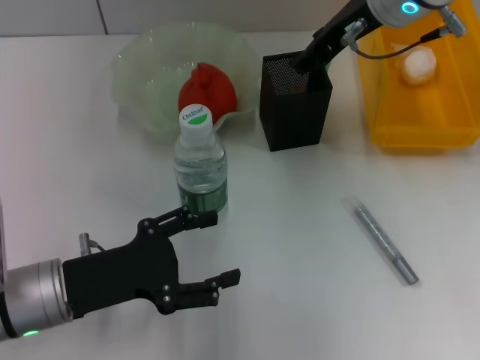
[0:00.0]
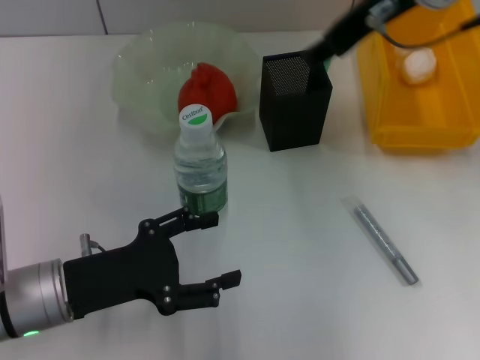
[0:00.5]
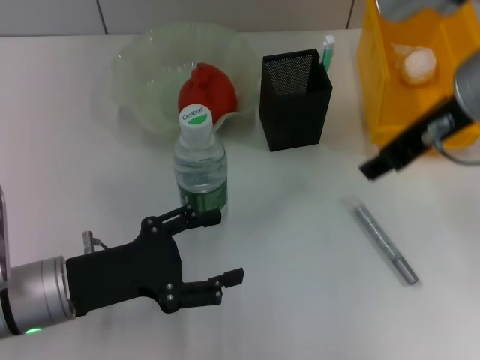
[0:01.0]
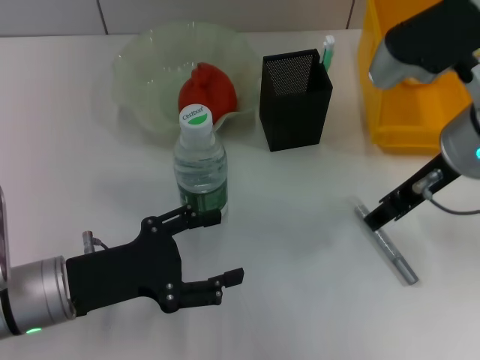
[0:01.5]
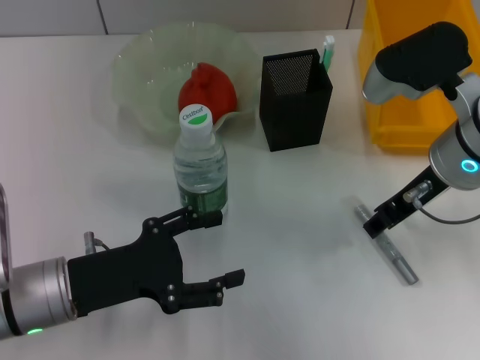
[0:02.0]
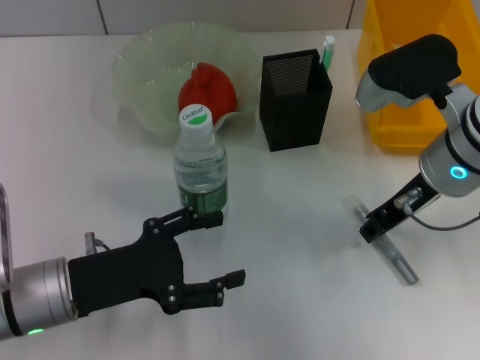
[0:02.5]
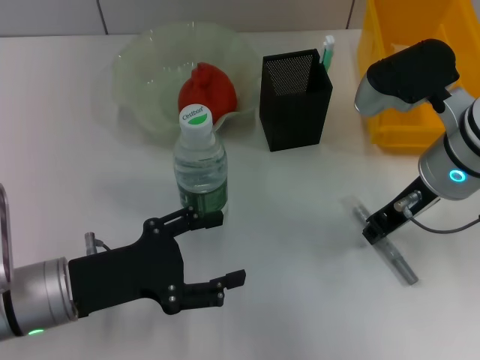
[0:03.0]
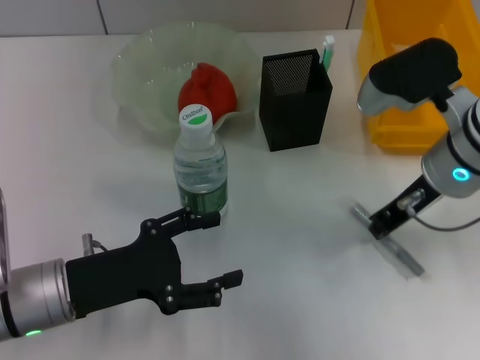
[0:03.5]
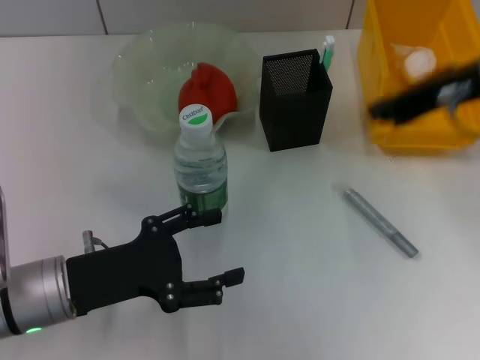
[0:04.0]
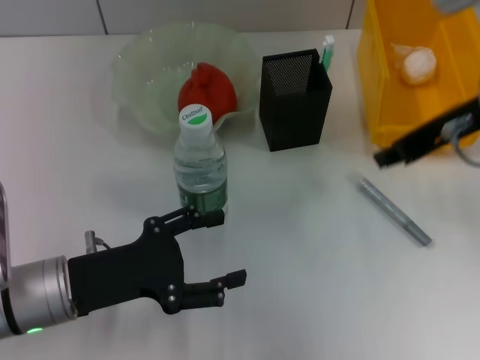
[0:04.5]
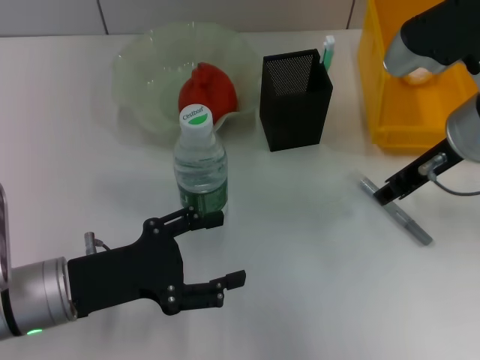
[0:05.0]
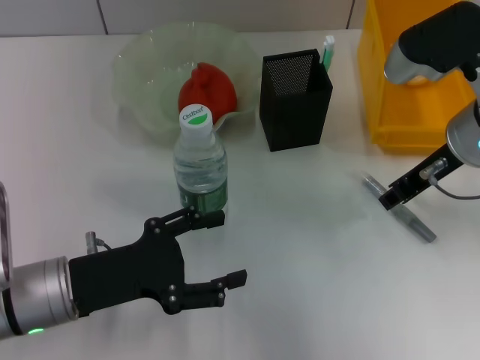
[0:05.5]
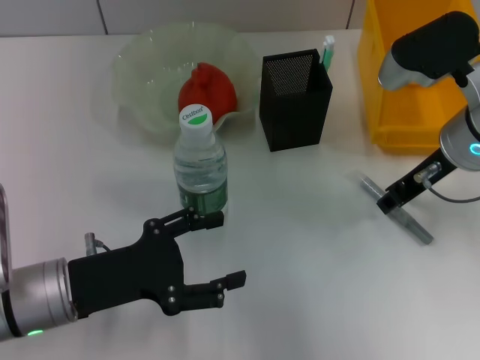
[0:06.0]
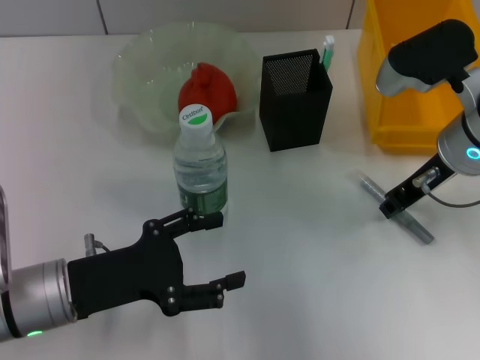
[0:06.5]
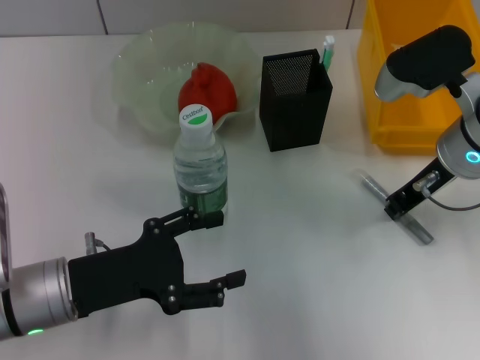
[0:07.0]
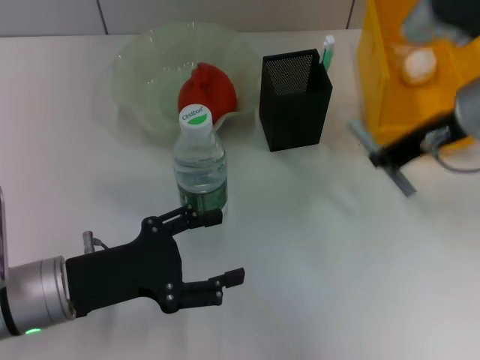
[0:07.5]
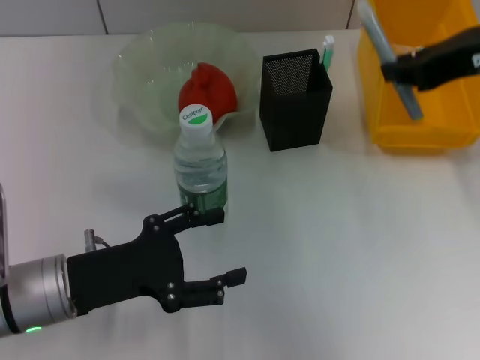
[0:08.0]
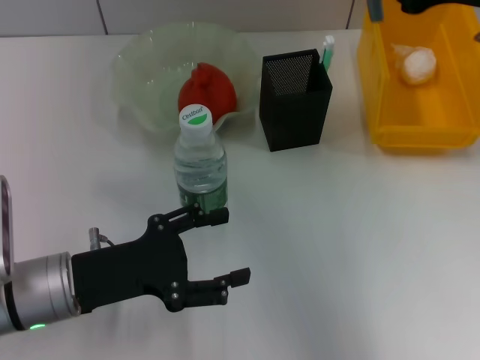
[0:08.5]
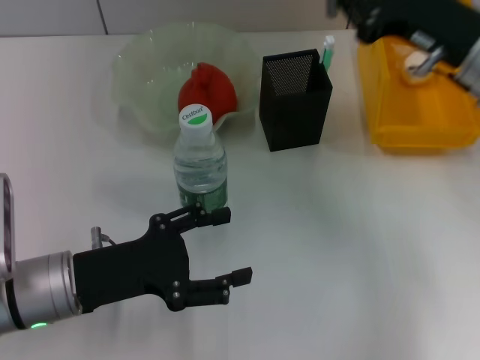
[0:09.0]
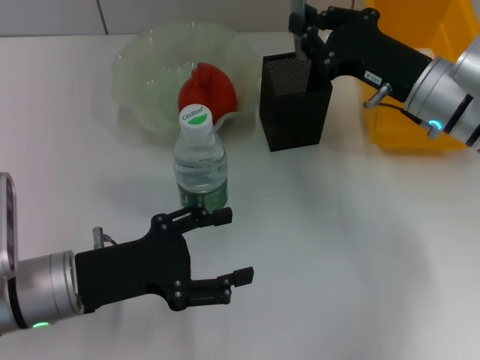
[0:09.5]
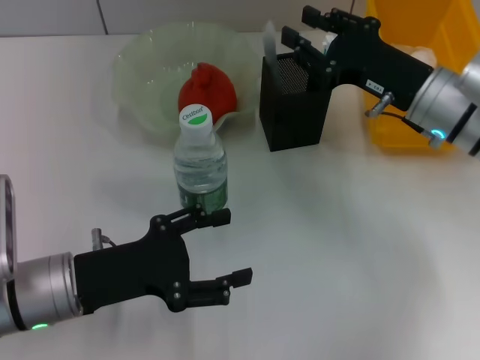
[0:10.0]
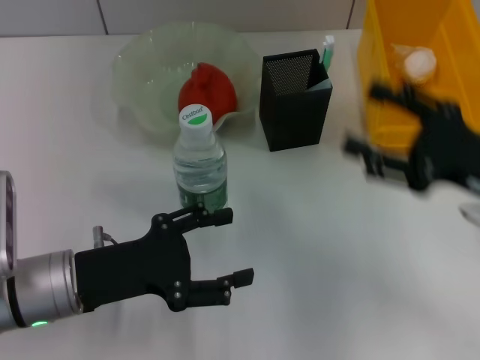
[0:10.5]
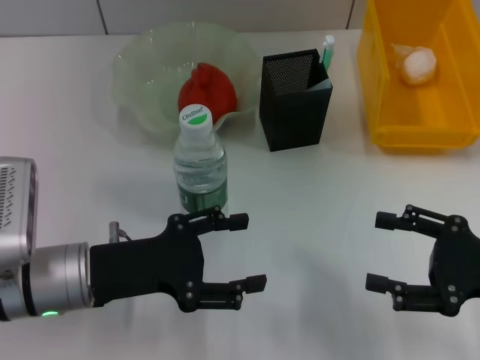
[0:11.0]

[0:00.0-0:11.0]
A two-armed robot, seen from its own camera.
Step, 0:00.5 to 0:06.5: Grab the gray glue with the right hand.
Step, 0:07.5 to 0:10.0: Place the gray glue into the pen holder with the right hand.
0:00.0 to 0:02.0: The right gripper moves backward and downward, roughly 10 cm.
0:02.0 to 0:03.5: The right gripper closes.
0:03.5 to 0:05.5: The right gripper travels upward and back again, about 10 cm each way, and opens its fingers.
0:05.5 to 0:07.5: The right gripper closes up.
0:07.5 to 0:09.0: The right gripper goes upward and returns, roughly 5 cm each way.
0:09.0 to 0:11.0: The right gripper heads backward, downward and to the right, covering approximately 20 cm, and opens up.

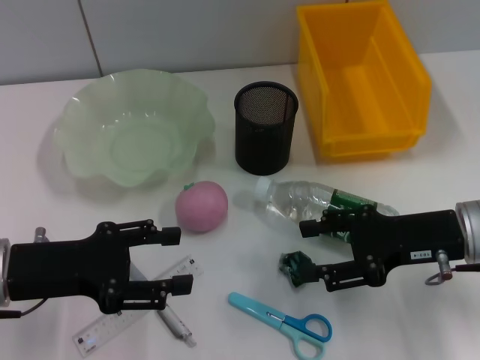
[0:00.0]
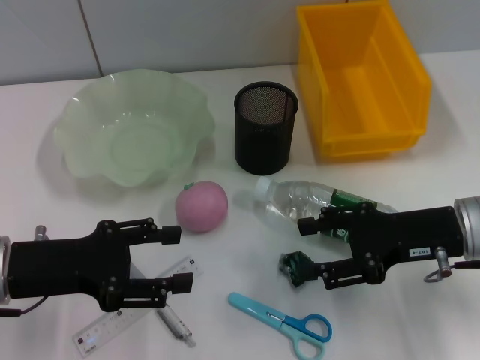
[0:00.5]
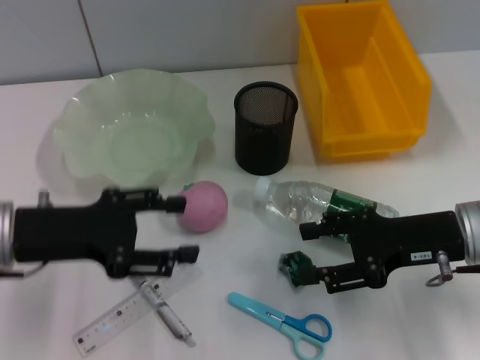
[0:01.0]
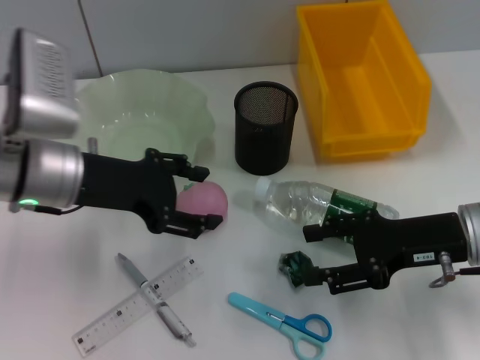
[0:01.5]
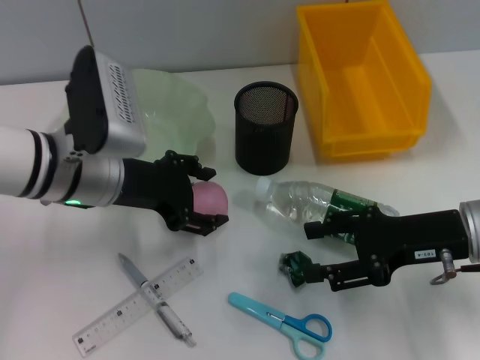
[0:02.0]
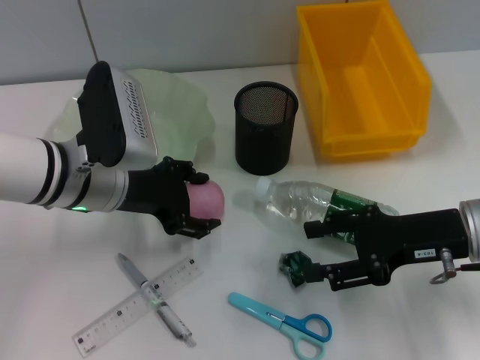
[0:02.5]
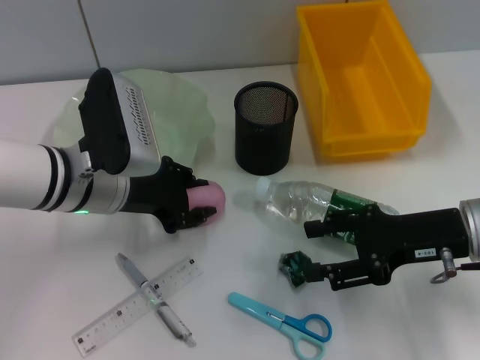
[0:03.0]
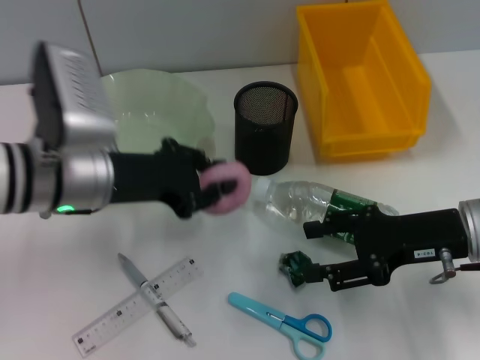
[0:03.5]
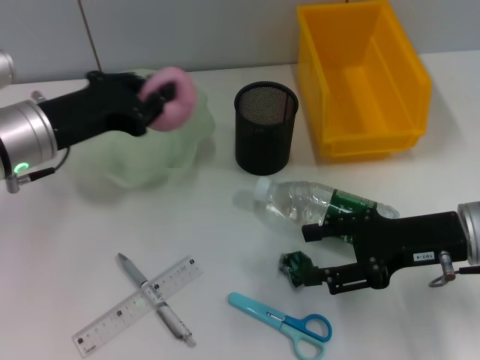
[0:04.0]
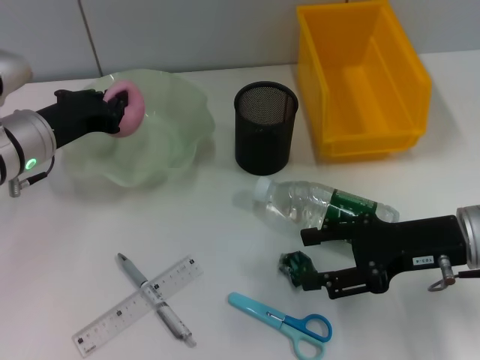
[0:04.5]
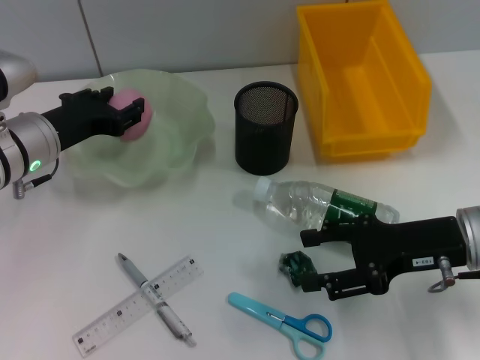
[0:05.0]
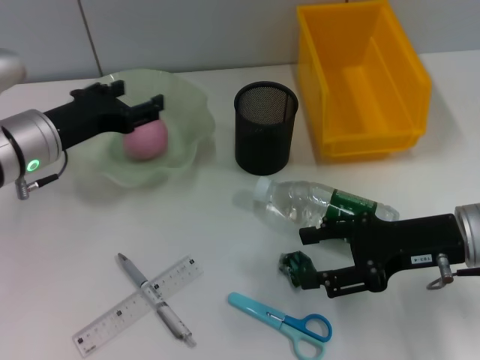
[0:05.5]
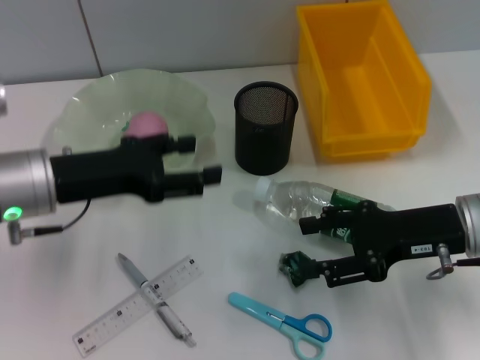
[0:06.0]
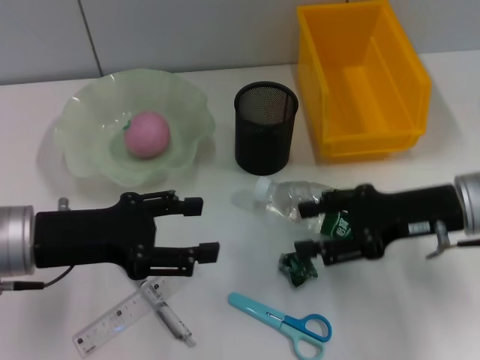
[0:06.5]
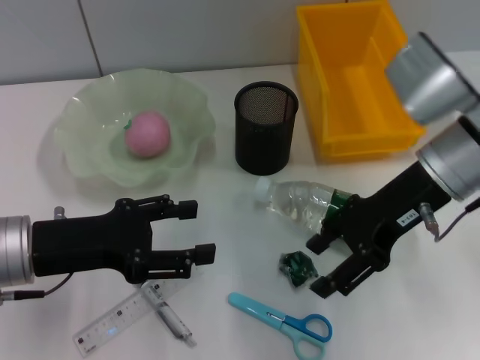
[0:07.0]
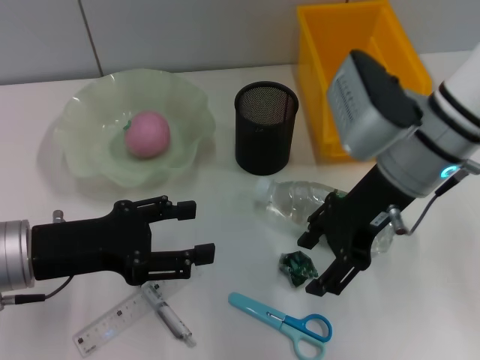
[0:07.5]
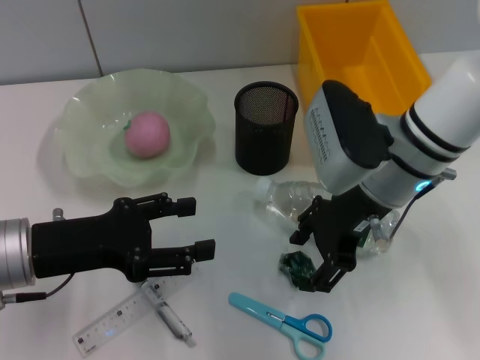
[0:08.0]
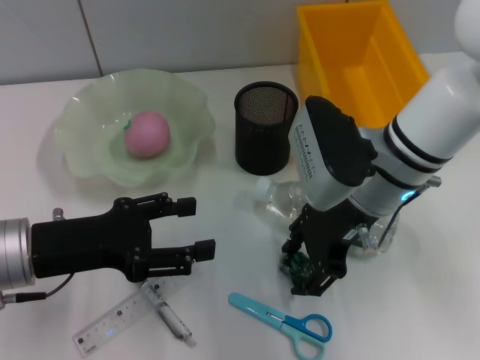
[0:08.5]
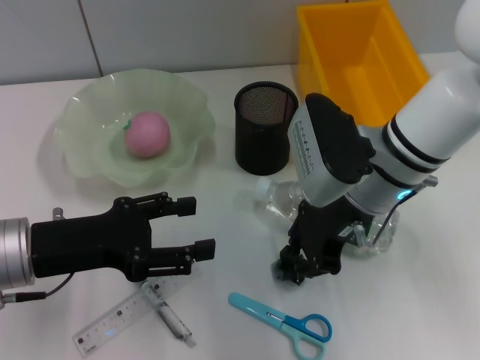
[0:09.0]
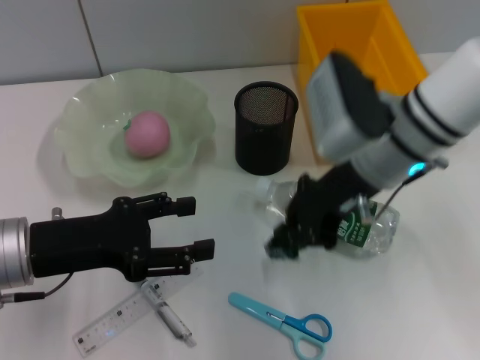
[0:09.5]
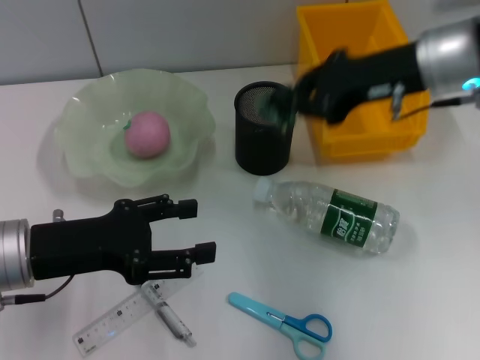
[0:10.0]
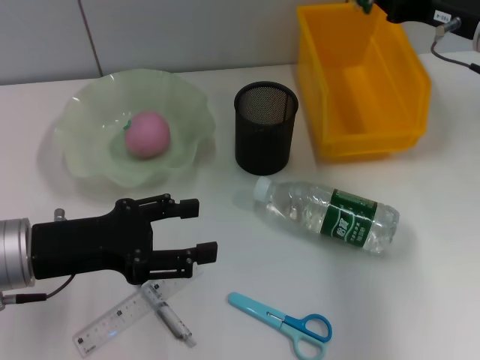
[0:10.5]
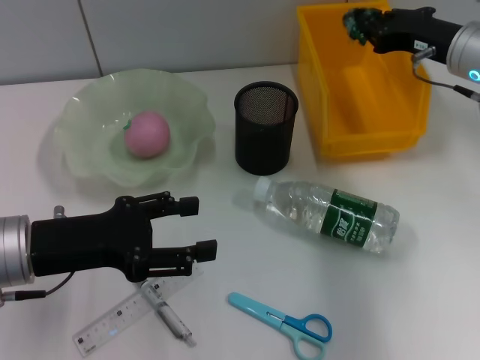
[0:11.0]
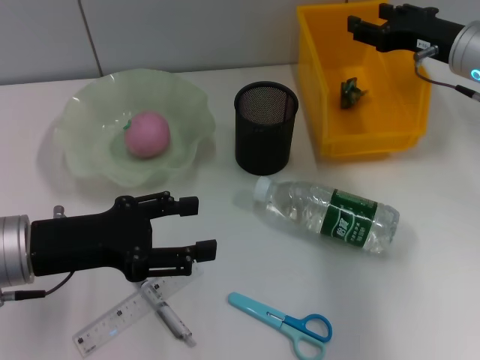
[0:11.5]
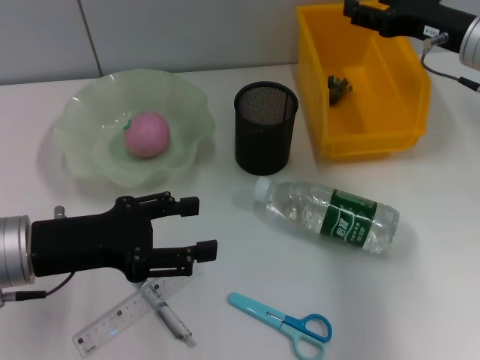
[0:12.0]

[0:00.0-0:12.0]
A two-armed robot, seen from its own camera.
Step, 0:00.0 to 0:03.0: Grab the peach with the left hand.
Step, 0:03.5 to 0:05.0: Place the peach into the fruit bowl with the left hand.
Step, 0:05.5 to 0:09.0: Grab the plastic with the right hand.
Step, 0:09.5 to 0:11.0: Place the plastic into the trash can with the right hand.
0:00.0 to 0:02.0: The left gripper travels to the right and forward by some 15 cm.
0:02.0 to 0:04.0: The left gripper changes place by some 5 cm, and closes.
0:04.0 to 0:06.0: The left gripper opens.
0:06.0 to 0:08.0: The right gripper moves to the left and forward, about 10 cm. Meanwhile the left gripper heads backward, covering roughly 5 cm.
0:08.0 to 0:10.0: The right gripper is displaced upward and to the right by approximately 10 cm, and closes up.
0:10.0 to 0:12.0: The right gripper goes some 5 cm to the right, and opens its fingers.

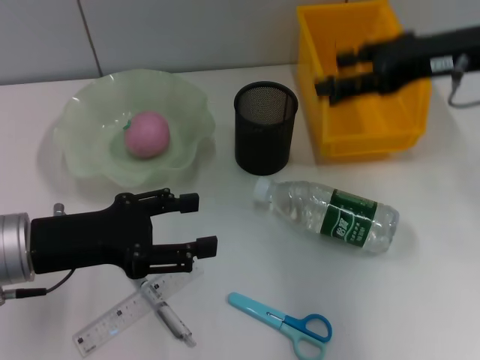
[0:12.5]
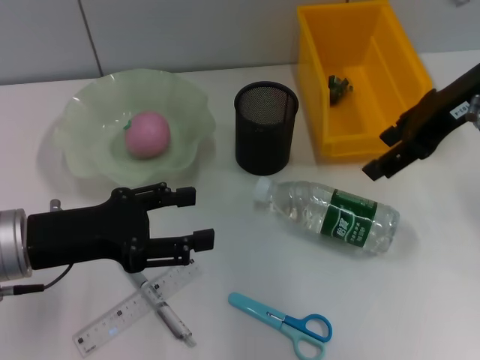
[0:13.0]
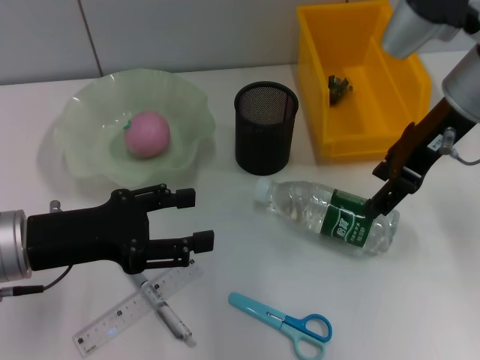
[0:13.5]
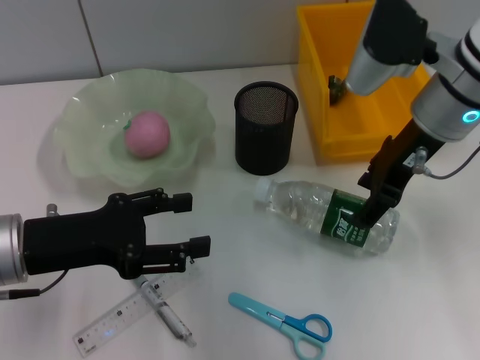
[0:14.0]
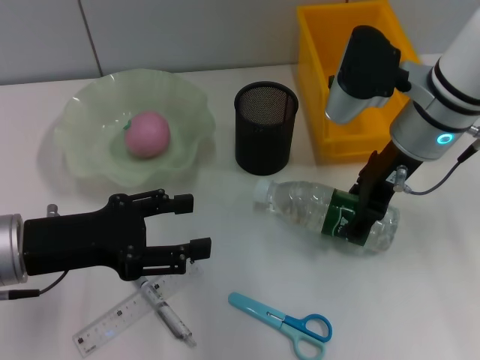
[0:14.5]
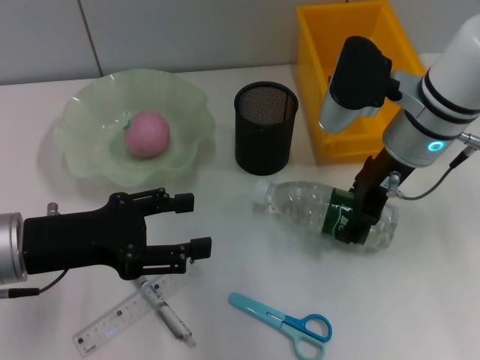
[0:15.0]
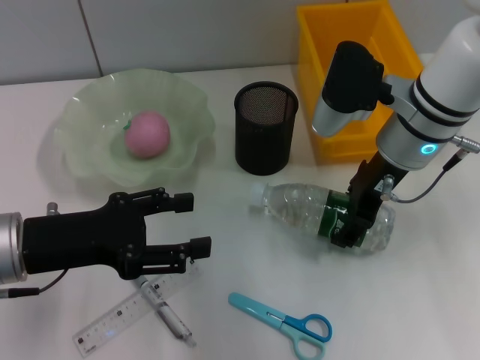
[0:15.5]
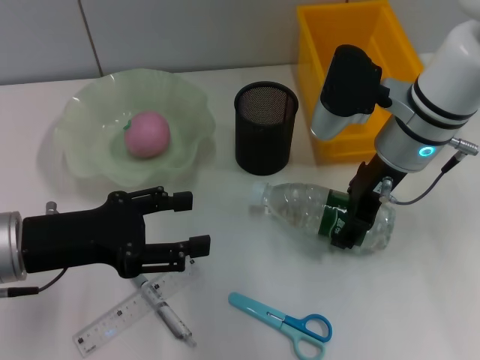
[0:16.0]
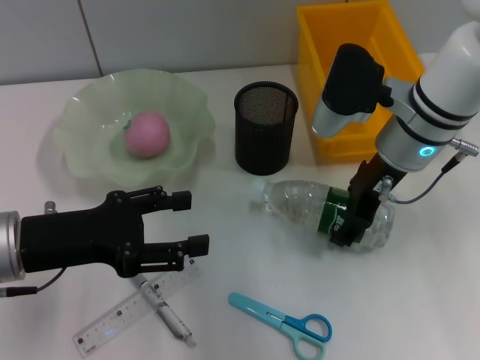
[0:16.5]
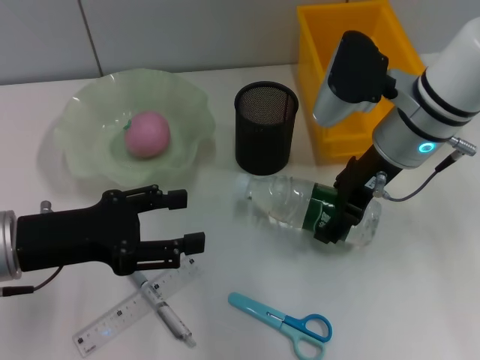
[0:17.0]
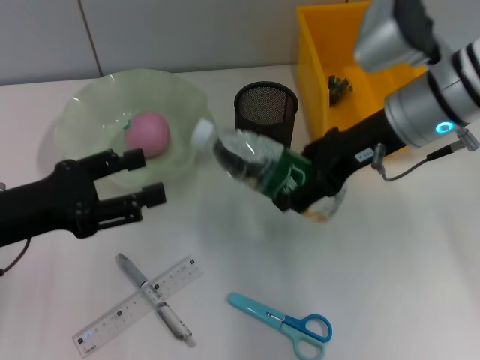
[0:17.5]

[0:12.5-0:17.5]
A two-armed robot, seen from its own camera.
Step, 0:12.5 to 0:16.5: Grab the water bottle with the right hand.
0:12.5 to 0:15.0: The right gripper shifts some 10 cm to the left and downward.
